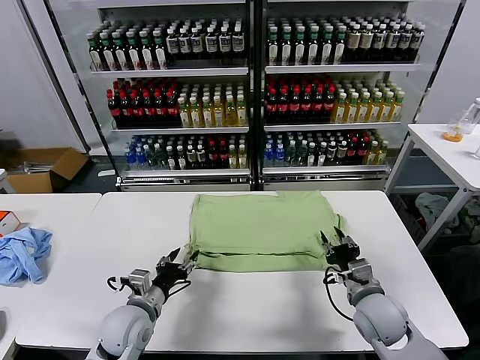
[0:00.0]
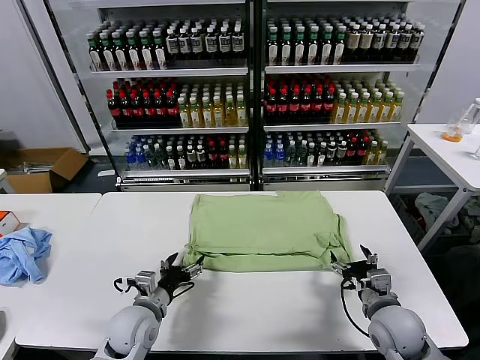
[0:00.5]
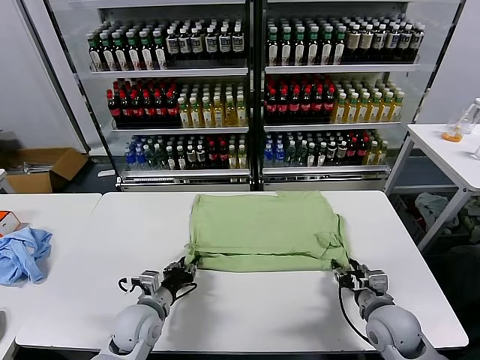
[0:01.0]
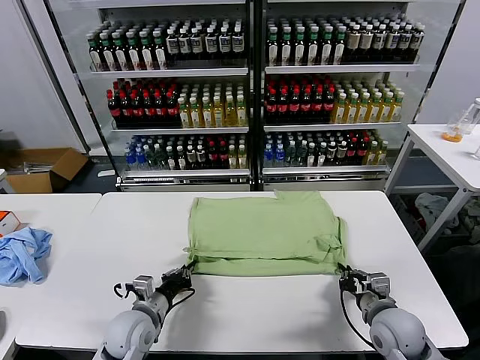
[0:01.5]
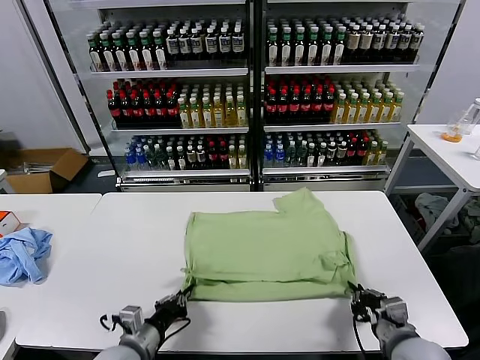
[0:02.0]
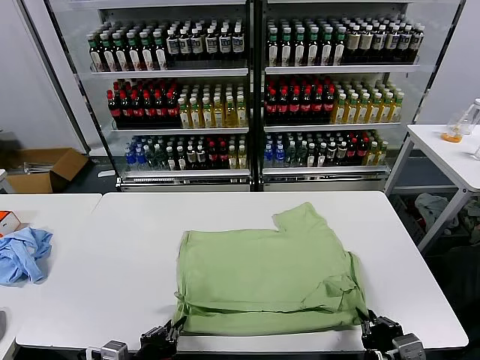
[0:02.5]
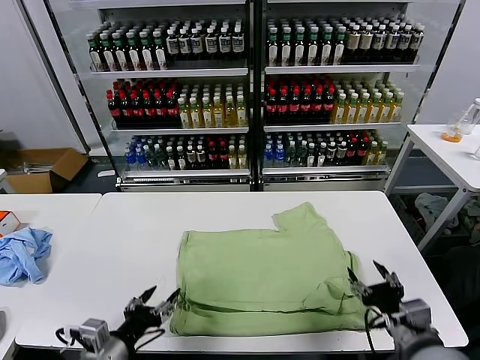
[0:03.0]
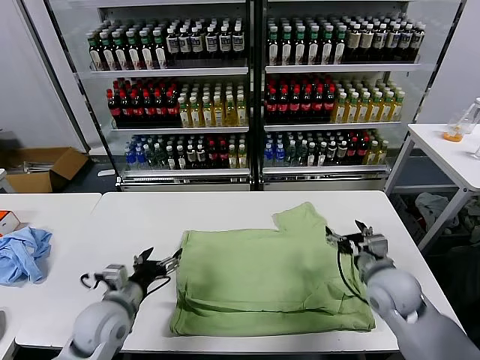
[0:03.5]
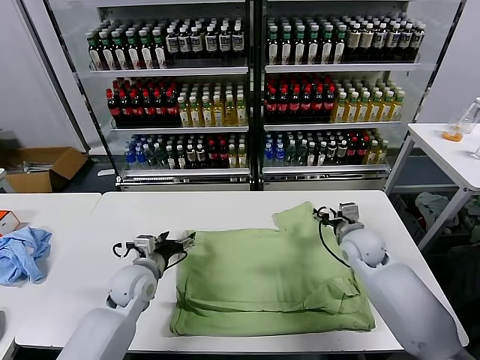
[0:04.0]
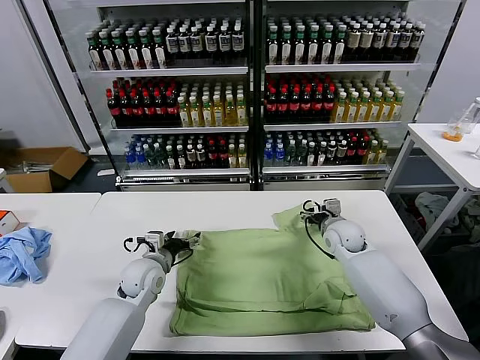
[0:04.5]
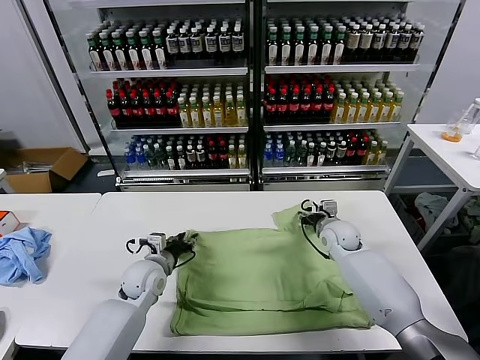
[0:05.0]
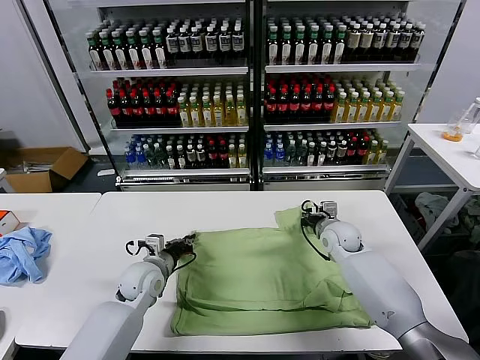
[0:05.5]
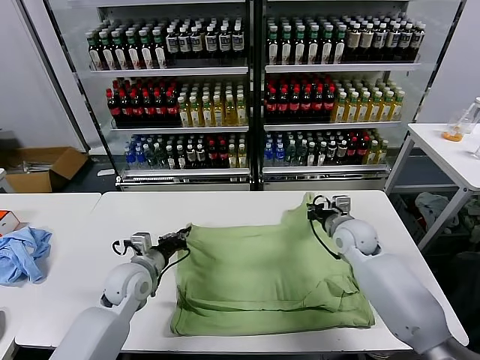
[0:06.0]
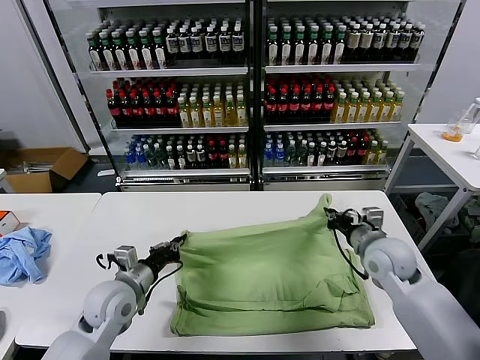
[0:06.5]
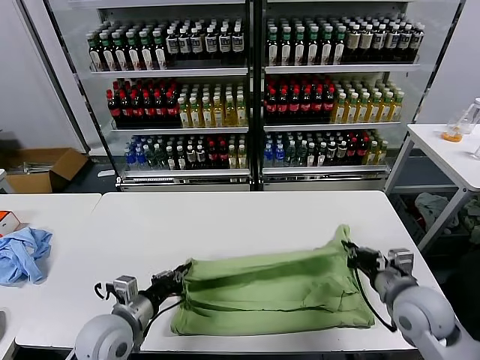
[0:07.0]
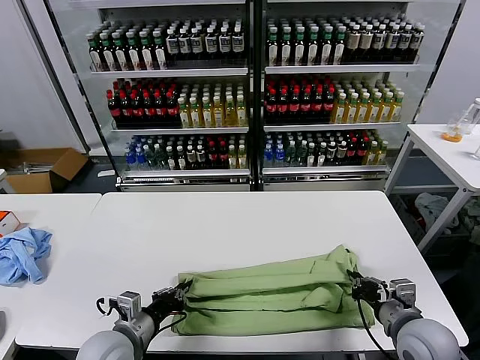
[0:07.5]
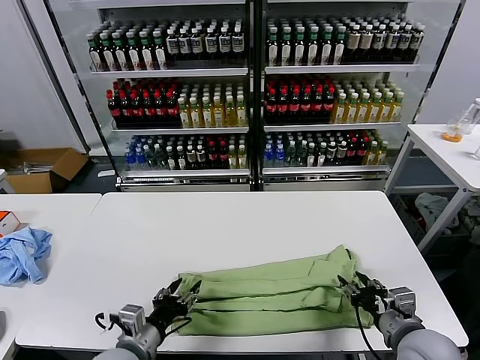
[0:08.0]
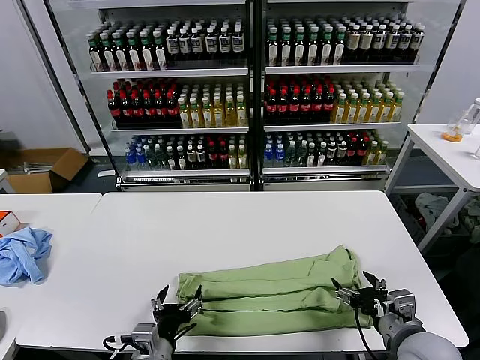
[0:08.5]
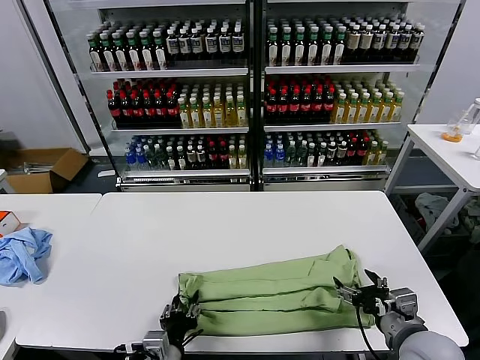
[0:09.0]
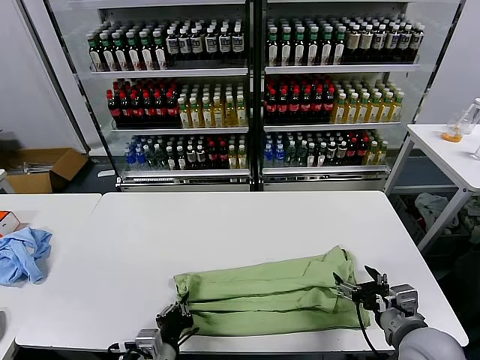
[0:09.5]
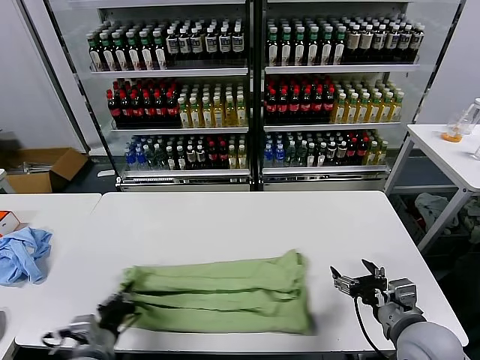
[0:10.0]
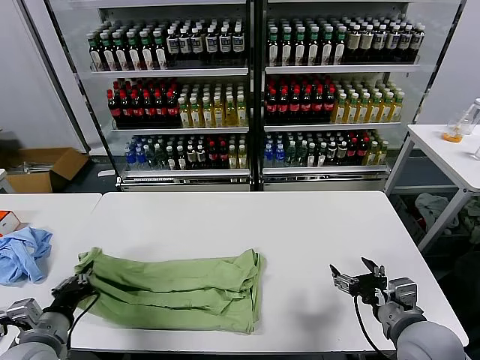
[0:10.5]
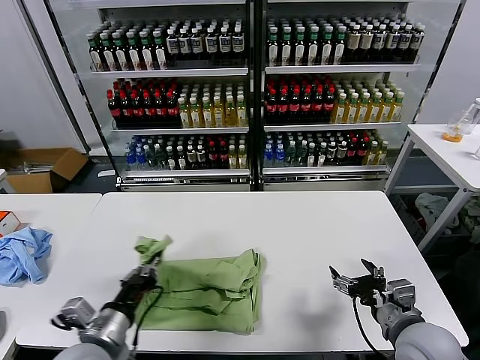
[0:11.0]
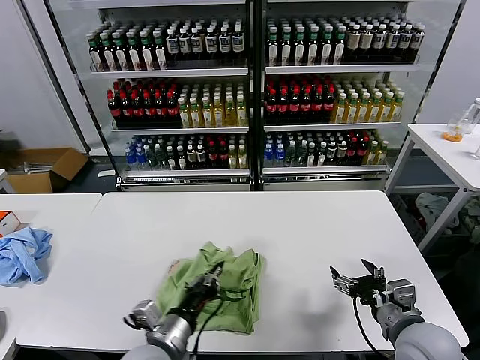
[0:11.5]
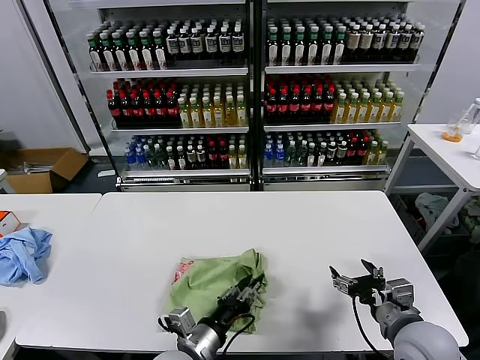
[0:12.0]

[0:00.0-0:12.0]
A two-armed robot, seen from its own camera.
Task of the whole recording: fold and organize the clothes.
Step, 0:00.5 to 0:02.5: Drag the clothes downward with both gripper.
Step, 0:03.0 to 0:05.0: use both grippers simultaneously to clamp the upper edge of the clothing fabric.
Step, 0:05.5 to 0:08.0: use both grippers to drag the upper edge of the fabric backward and fold it over the lower edge.
Step, 0:08.5 to 0:09.0: use the left gripper to clamp the left edge of the fabric.
0:00.0 to 0:02.0: Both grippers travel together backward, some 10 cm. The right gripper closes its fingers; the left gripper closes its fingers.
0:02.0 to 0:04.0: The left gripper shifts roughly 20 cm forward, and opens. The right gripper moves forward, some 30 cm, and opens.
0:04.0 to 0:06.0: The right gripper closes up, while the left gripper closes its fingers.
0:06.0 to 0:08.0: Both grippers move backward, approximately 20 cm. The left gripper opens. The right gripper opens up.
0:08.0 to 0:10.0: The left gripper is displaced to the left by roughly 10 cm, and closes up.
0:10.0 to 0:12.0: The left gripper heads to the right, covering roughly 20 cm, and opens.

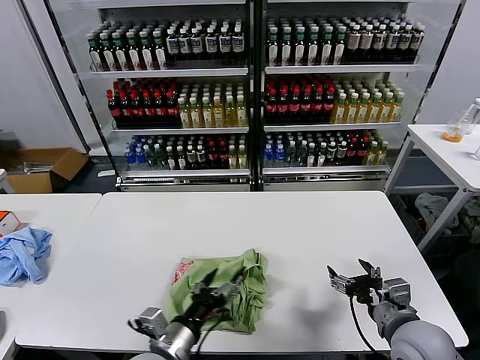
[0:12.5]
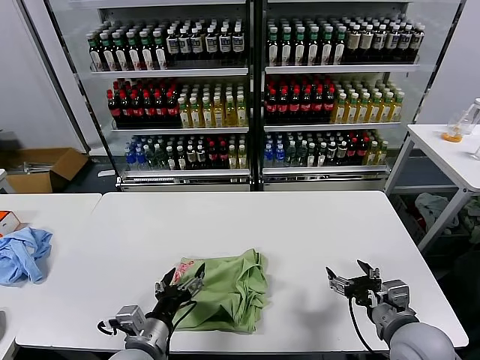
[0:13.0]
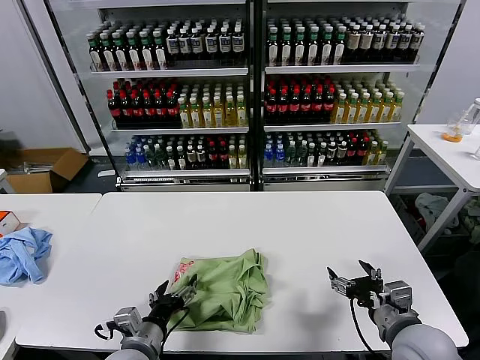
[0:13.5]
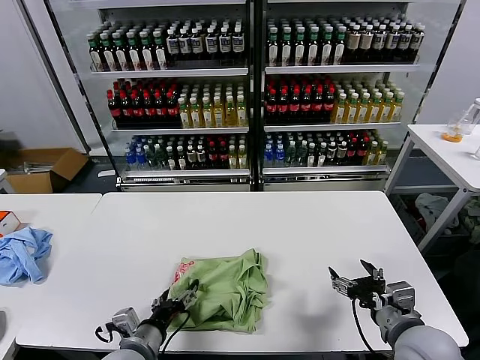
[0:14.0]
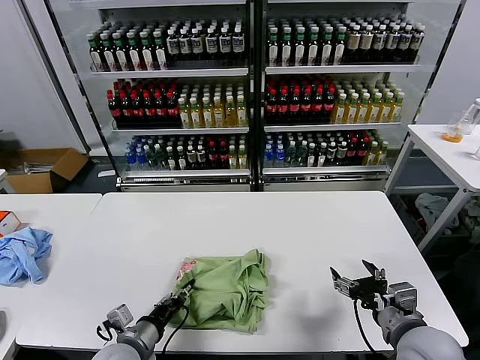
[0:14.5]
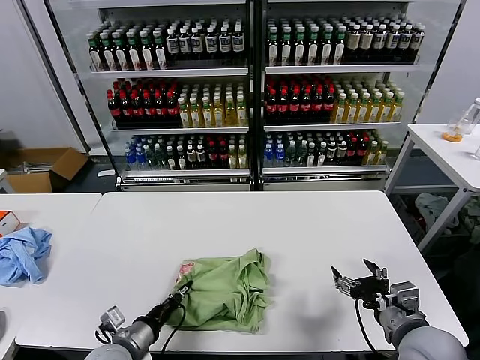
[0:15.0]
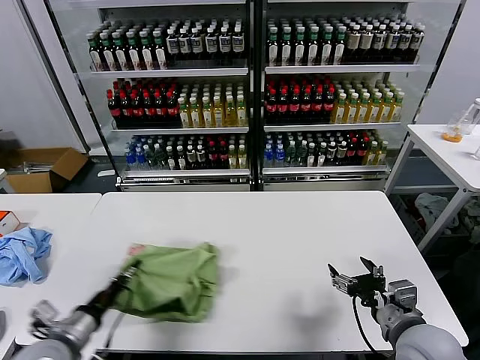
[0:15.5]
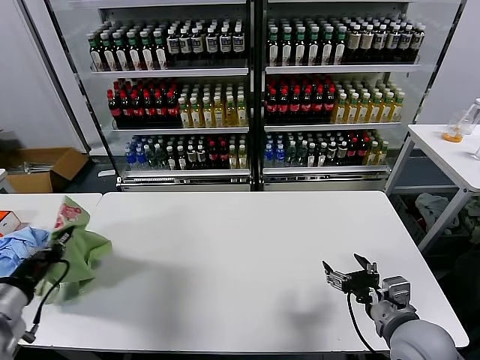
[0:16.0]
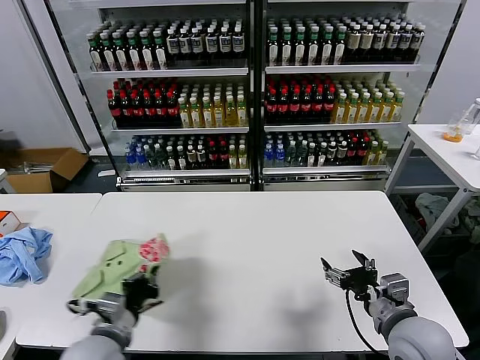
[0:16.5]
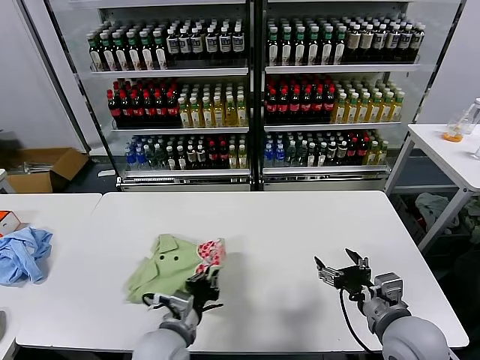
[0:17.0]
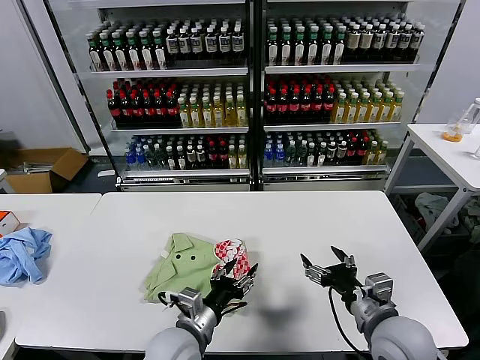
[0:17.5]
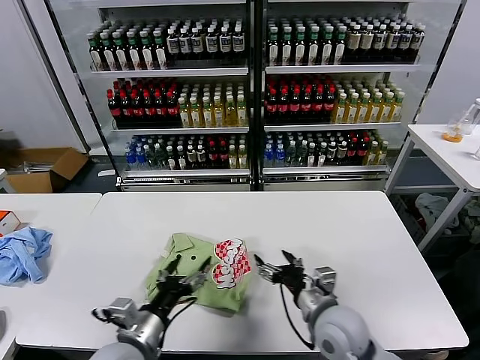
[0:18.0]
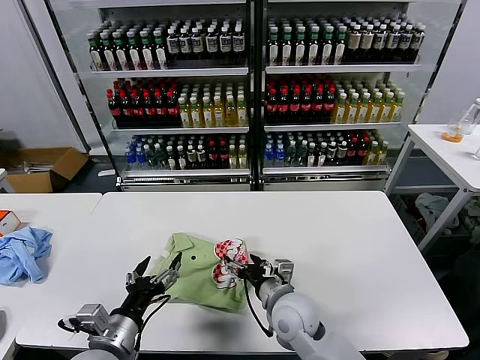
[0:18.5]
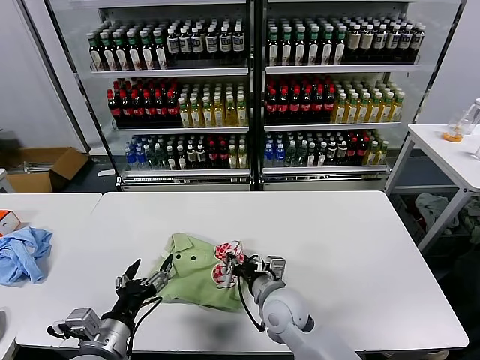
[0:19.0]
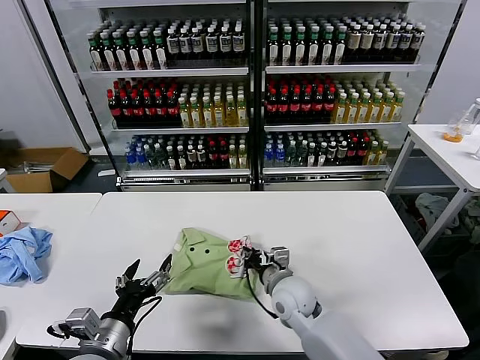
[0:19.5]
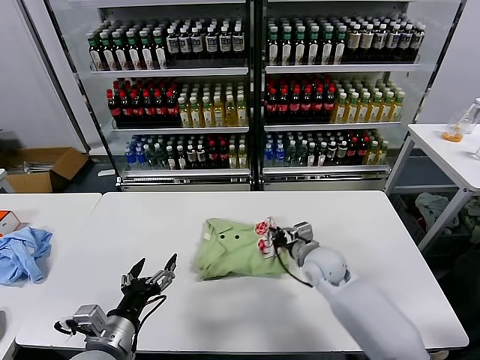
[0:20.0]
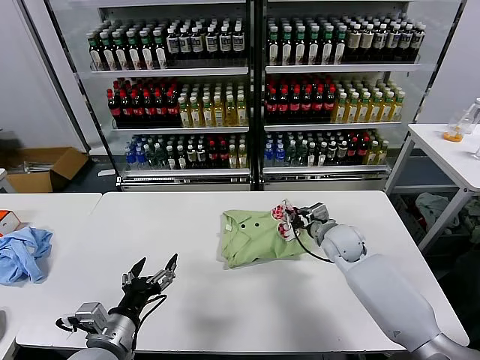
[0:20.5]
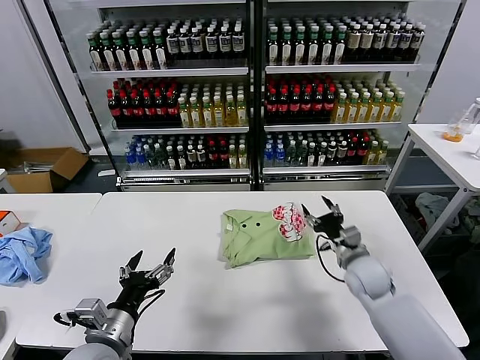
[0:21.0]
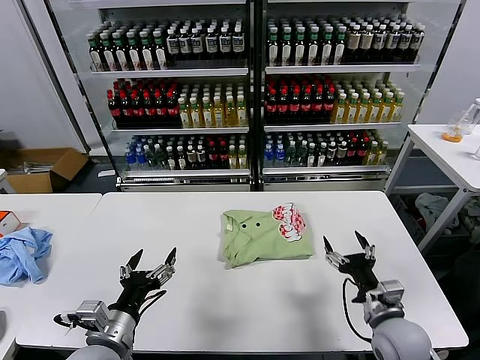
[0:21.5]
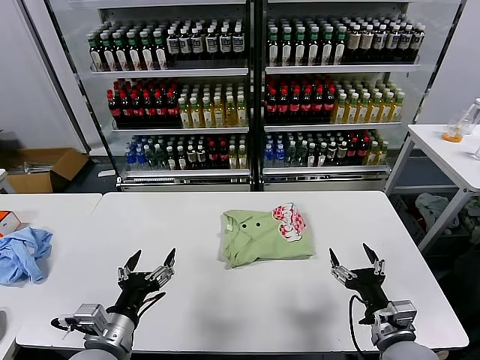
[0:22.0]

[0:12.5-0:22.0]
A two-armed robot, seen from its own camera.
Task of the whole recording: fold and organize the clothes.
Step, 0:12.5 to 0:17.0: Flip the folded clothes over with left gripper.
Step, 0:18.0 to 0:20.5: Drag the clothes to the center of the table.
0:12.5 to 0:14.5: The left gripper goes about 10 cm to the left and downward, and closes.
0:14.5 to 0:16.5: The left gripper is displaced upward by some 5 cm, and reaches approximately 15 cm to the left, then returns.
0:16.5 to 0:18.0: The left gripper heads to the right, covering roughly 5 cm, and opens its fingers. Meanwhile the right gripper shifts about 10 cm to the left.
0:18.0 to 0:20.0: The right gripper shifts some 15 cm forward, and closes its fingers.
0:20.0 to 0:22.0: The right gripper shifts some 25 cm backward and to the right, and opens its fingers.
